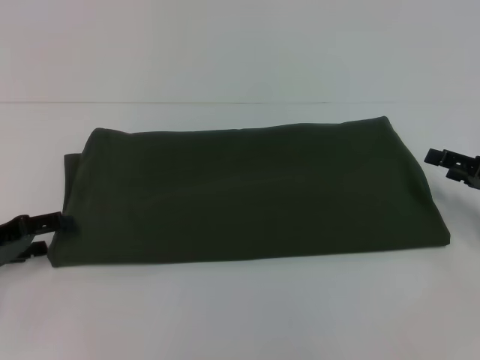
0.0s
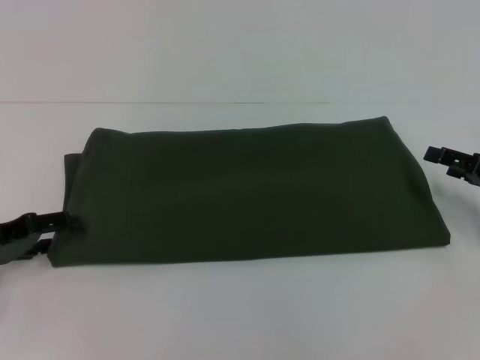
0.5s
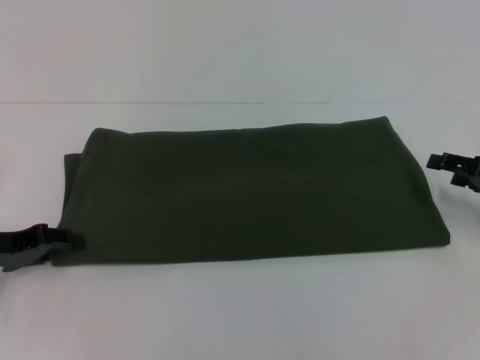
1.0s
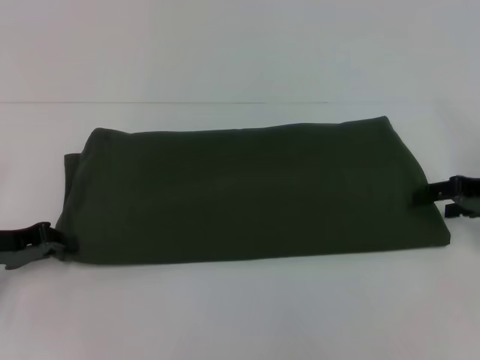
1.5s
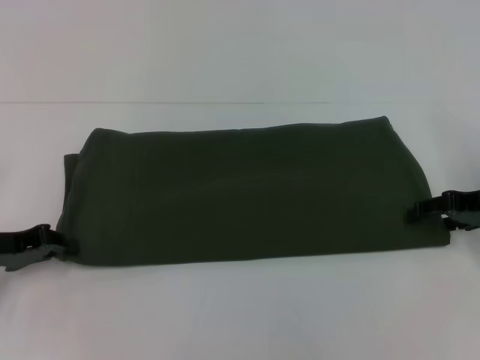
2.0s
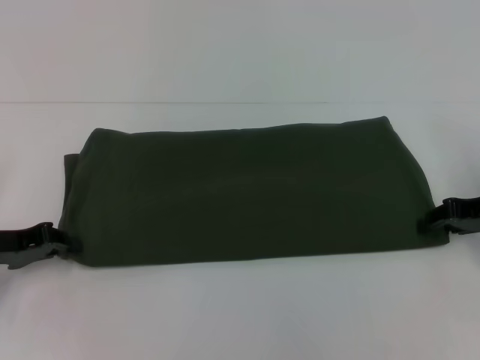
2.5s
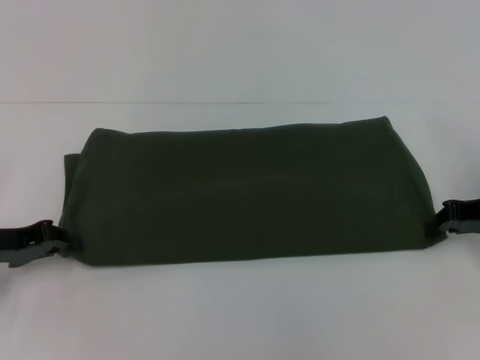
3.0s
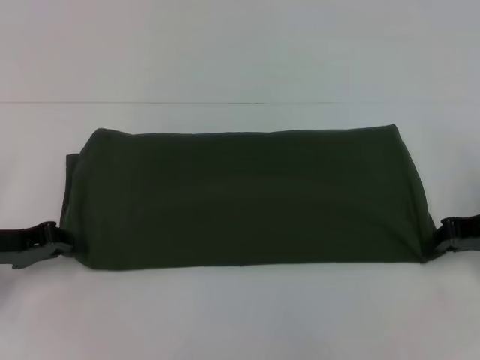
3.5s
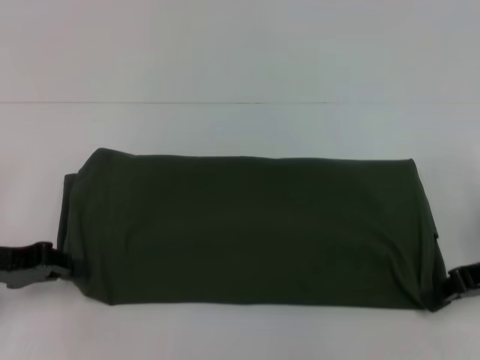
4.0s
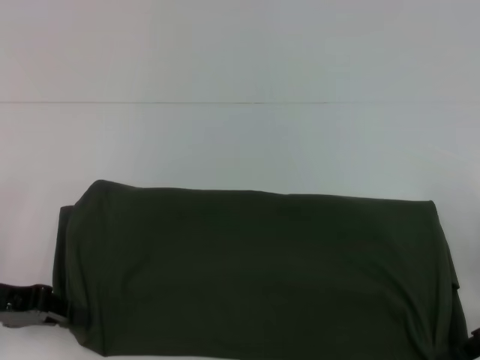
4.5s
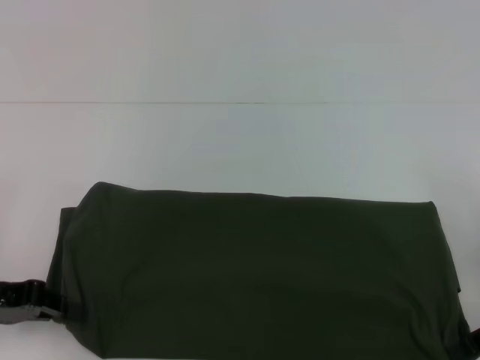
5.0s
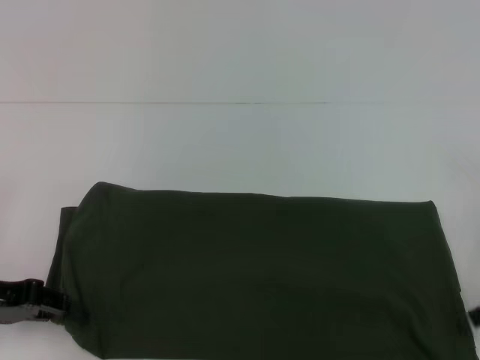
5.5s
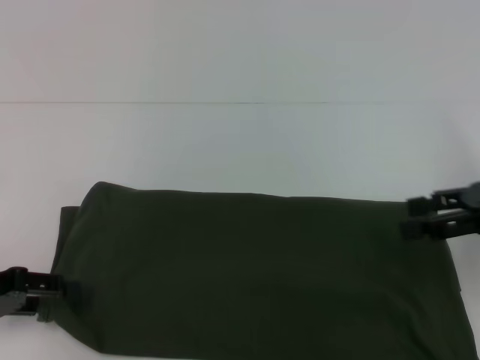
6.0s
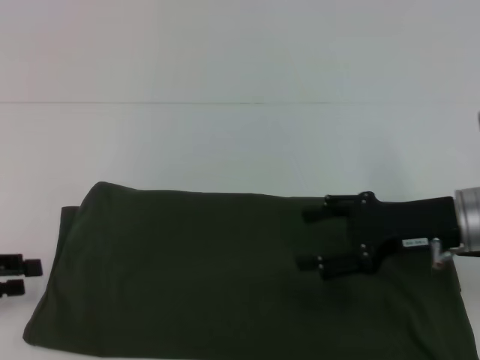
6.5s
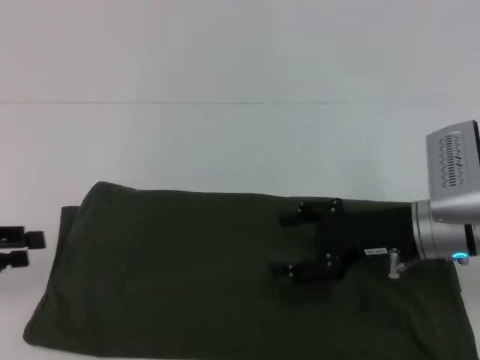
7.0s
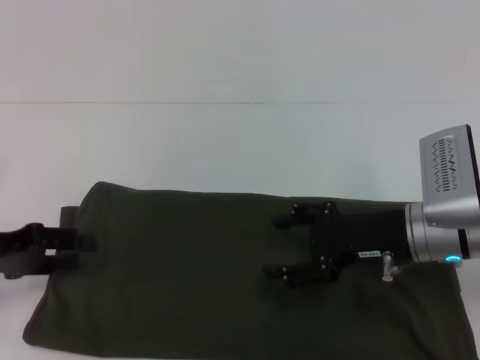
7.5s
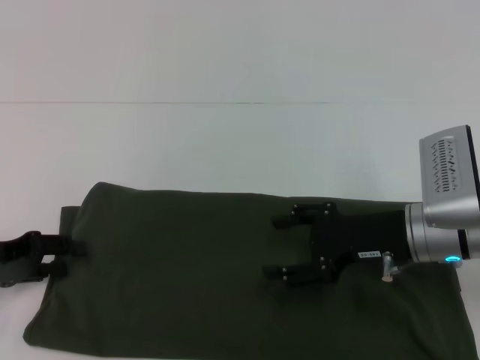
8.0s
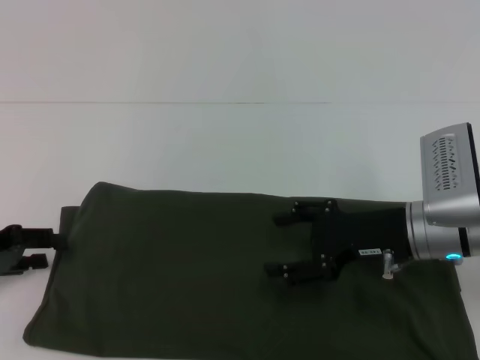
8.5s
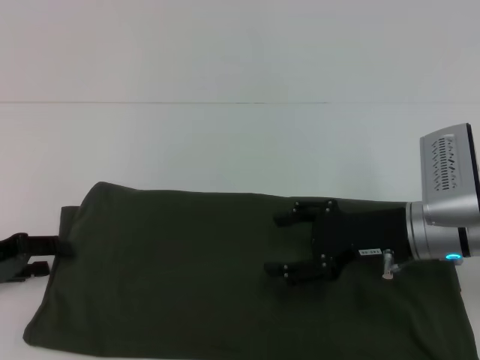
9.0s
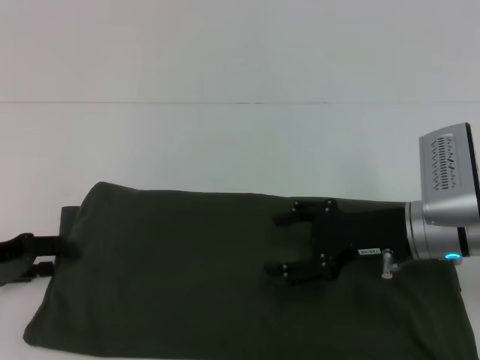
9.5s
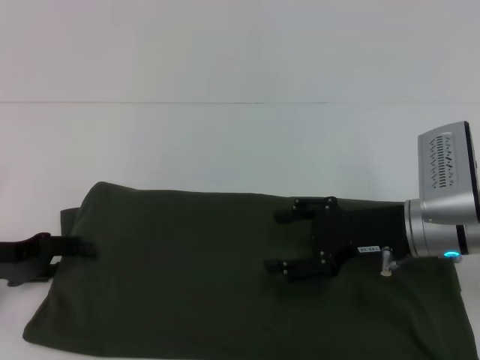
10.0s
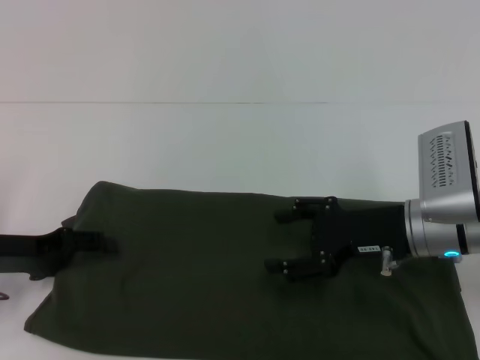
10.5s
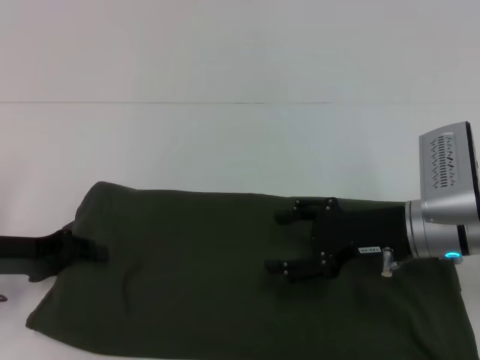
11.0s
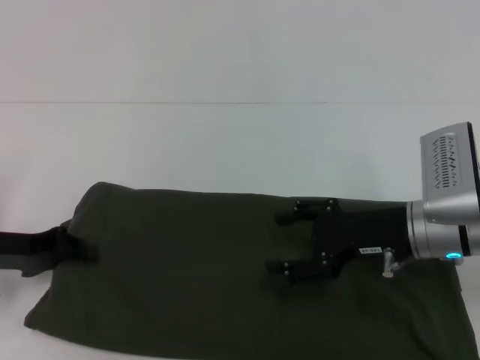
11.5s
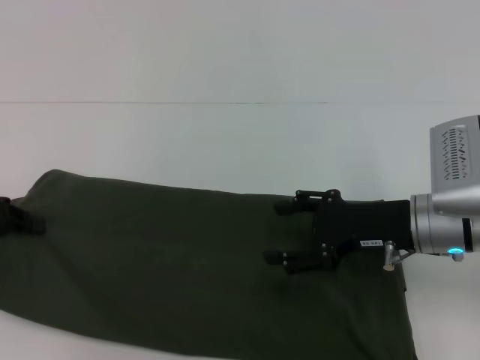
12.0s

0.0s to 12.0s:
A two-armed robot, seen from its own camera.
0.0s to 2.0s: The right gripper moves about 5 cm. Meanwhile the left gripper closes.
2.0s to 4.0s: The right gripper closes.
4.0s to 6.0s: The left gripper opens up. The right gripper is displaced upward by roughly 5 cm, and opens its fingers.
6.0s to 8.0s: The right gripper is displaced to the left and downward by roughly 15 cm.
8.0s to 10.0s: There are only small adjustments of the grippers.
10.0s to 12.0s: The left gripper is displaced upward by about 5 cm, and closes.

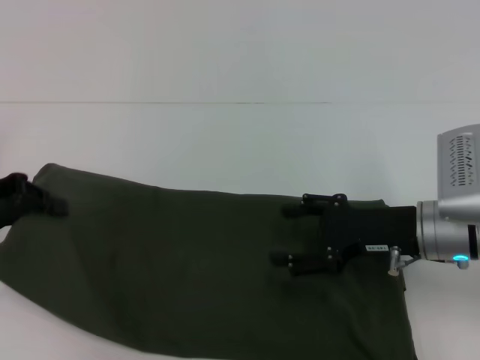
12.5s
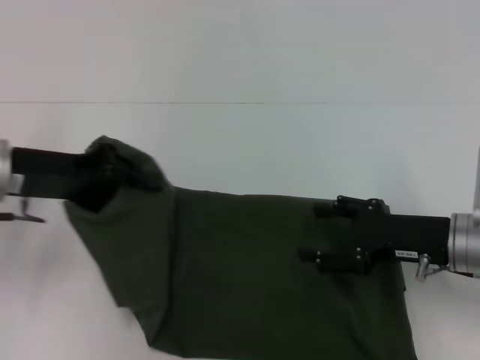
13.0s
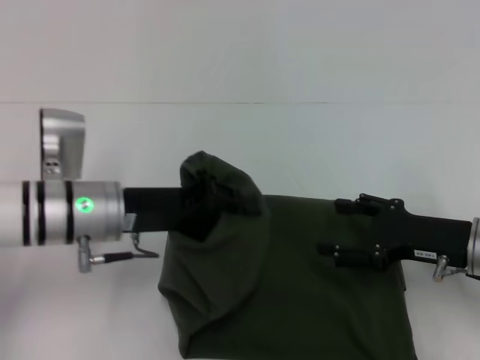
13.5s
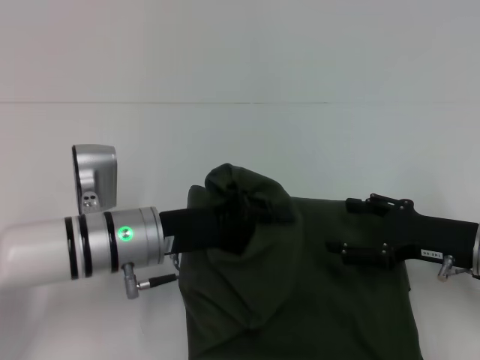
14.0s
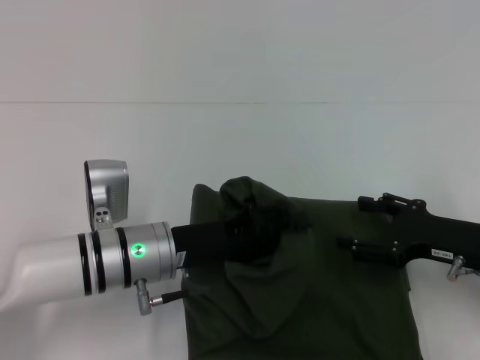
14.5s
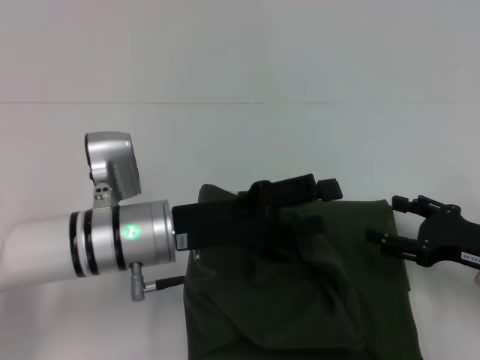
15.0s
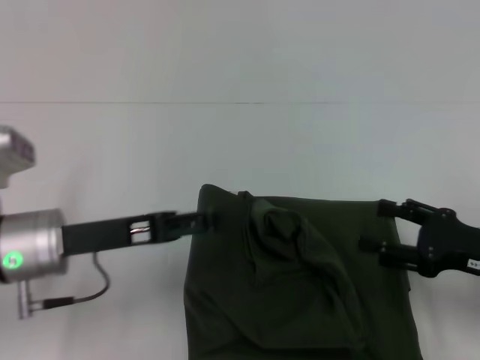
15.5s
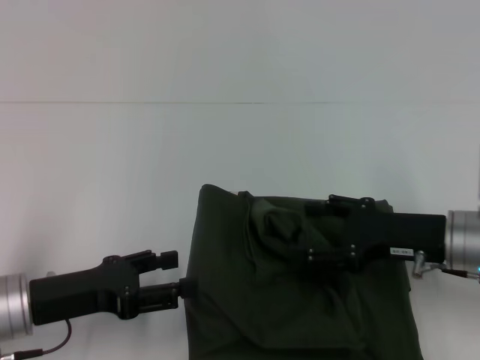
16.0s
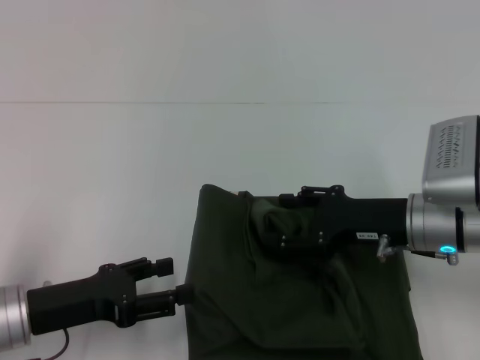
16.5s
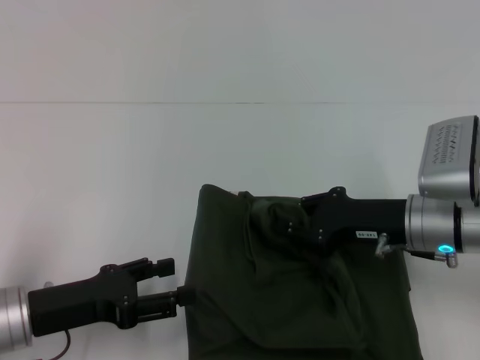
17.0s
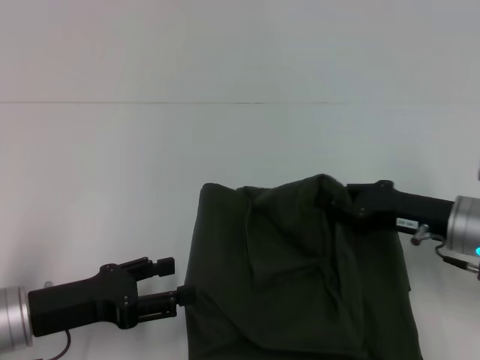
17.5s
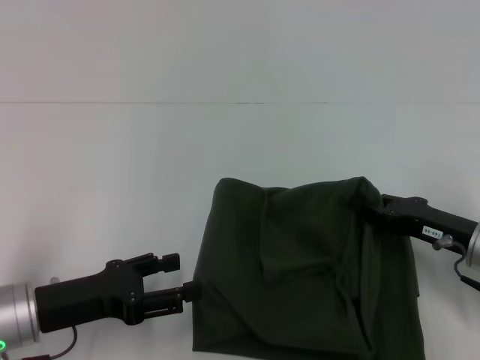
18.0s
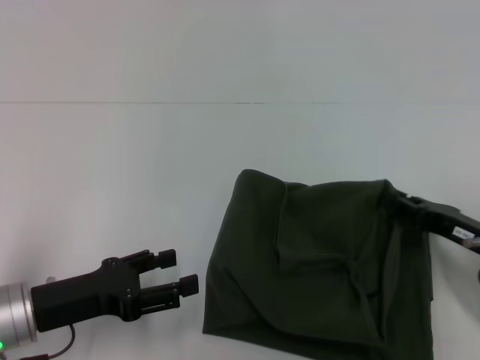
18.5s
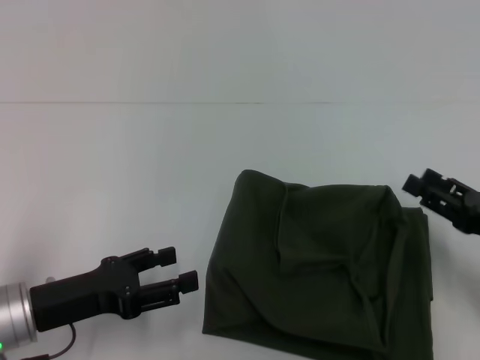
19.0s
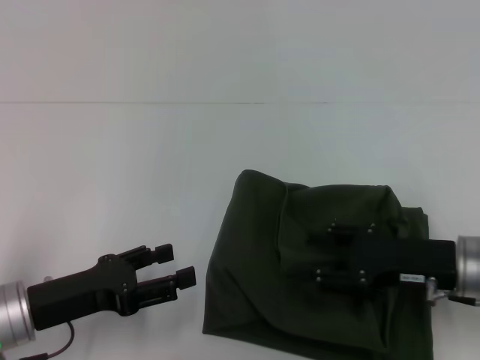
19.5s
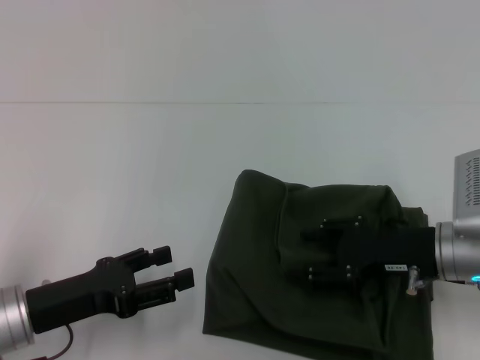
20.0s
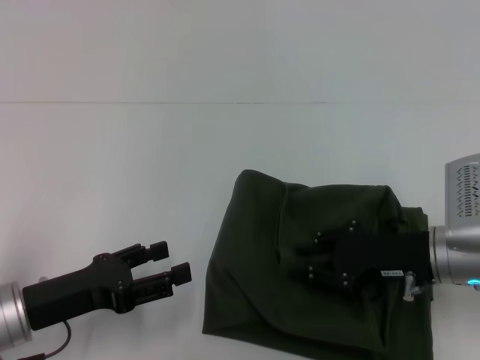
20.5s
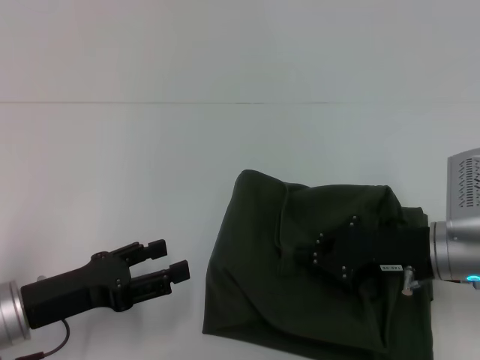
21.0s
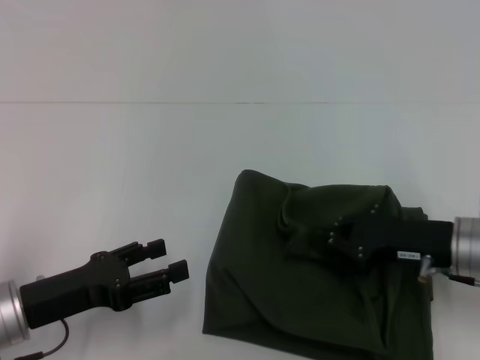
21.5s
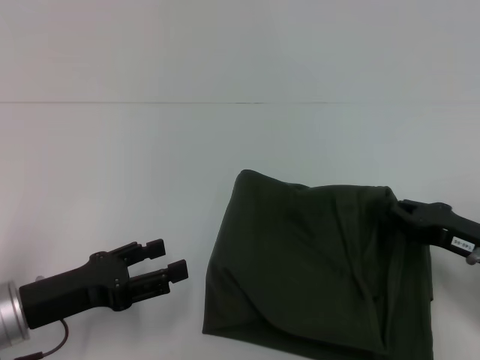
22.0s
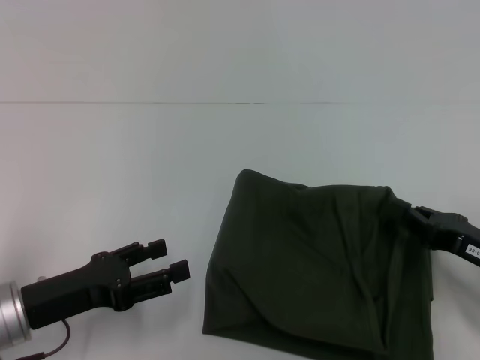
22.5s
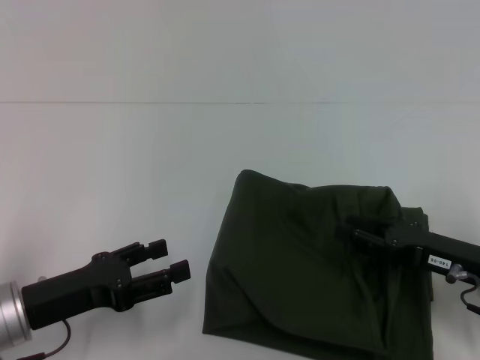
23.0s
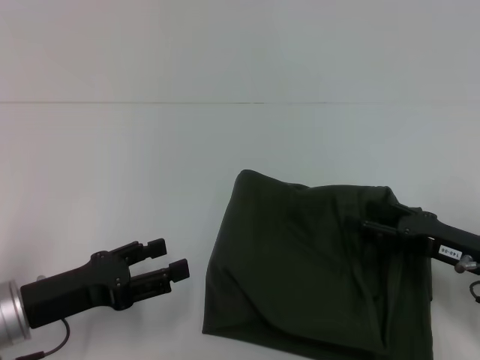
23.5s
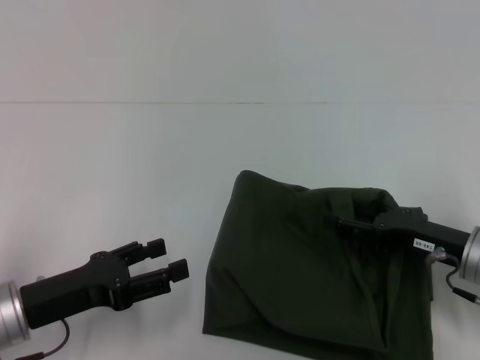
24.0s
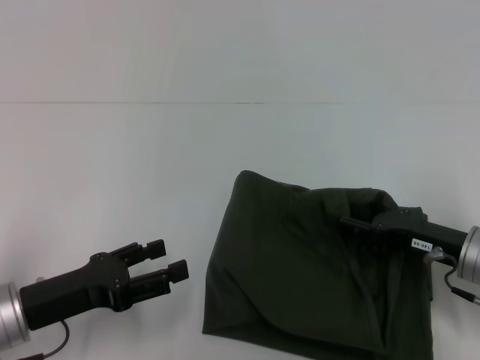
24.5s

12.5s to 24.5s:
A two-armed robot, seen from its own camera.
Step, 12.5s to 15.5s: Fold the clothes with your left hand.
12.5s to 14.5s: The right gripper moves to the right, about 5 cm, while the left gripper goes some 25 cm to the right and downward.
14.5s to 16.5s: The left gripper moves to the left and backward, about 15 cm, and opens up, while the right gripper moves to the left, some 5 cm.
16.5s to 18.5s: The right gripper is displaced to the right by some 10 cm, and closes its fingers.
18.5s to 20.5s: The right gripper moves to the left, some 5 cm, and opens up.
20.5s to 22.5s: The right gripper travels to the right by some 10 cm, and closes.
22.5s to 24.5s: The right gripper changes place by approximately 5 cm, and opens its fingers.

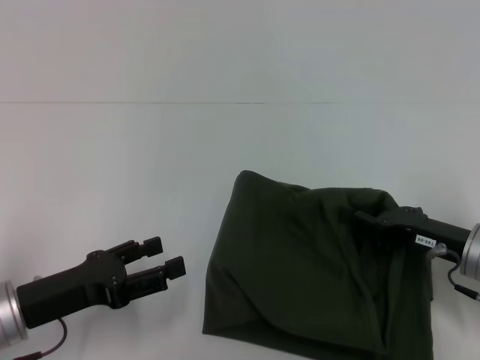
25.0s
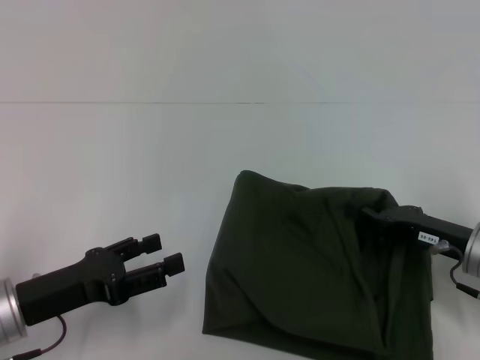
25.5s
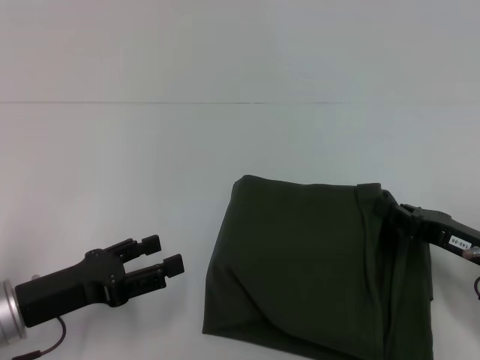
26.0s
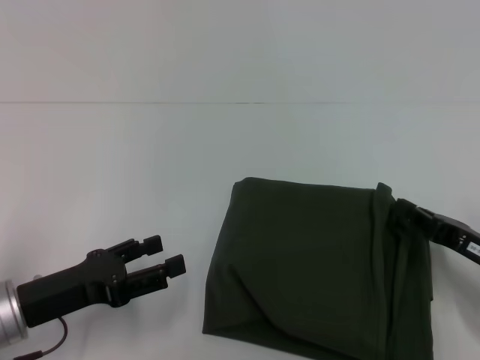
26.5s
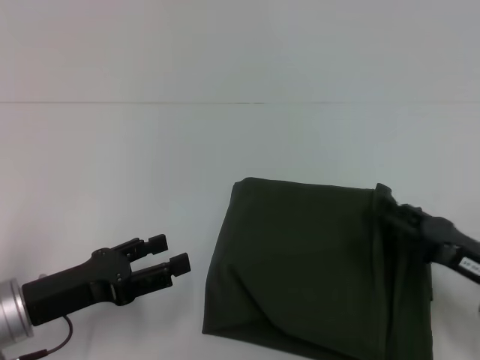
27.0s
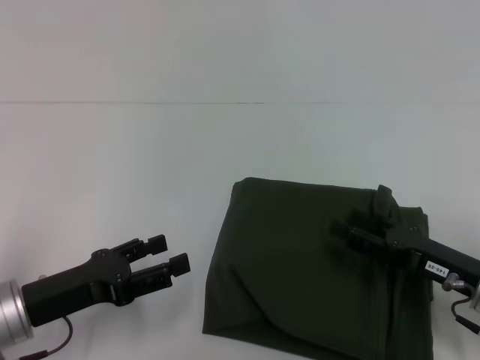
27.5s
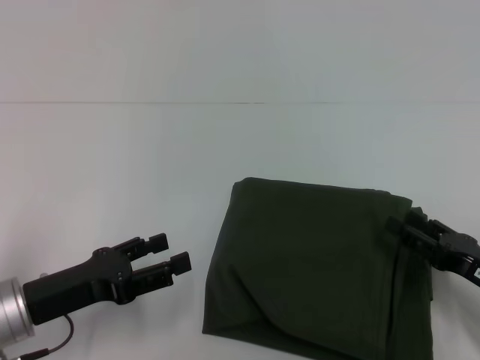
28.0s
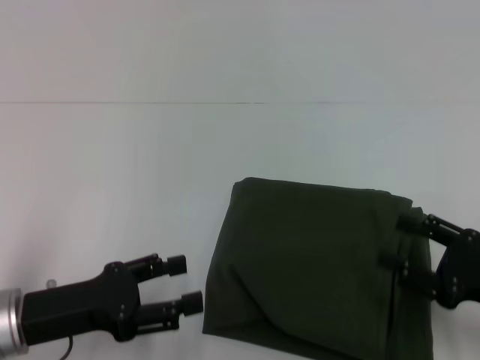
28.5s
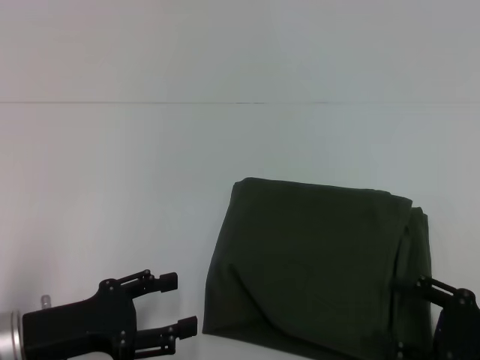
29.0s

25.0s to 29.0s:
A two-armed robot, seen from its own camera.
25.0s to 27.0s: The right gripper shifts some 5 cm backward, and closes, then reopens.
27.0s to 29.0s: The right gripper goes approximately 5 cm backward, and opens.
